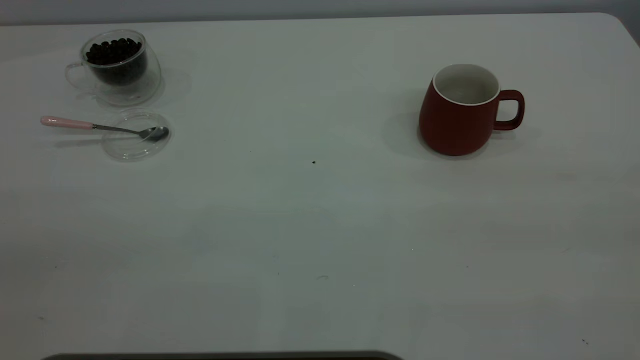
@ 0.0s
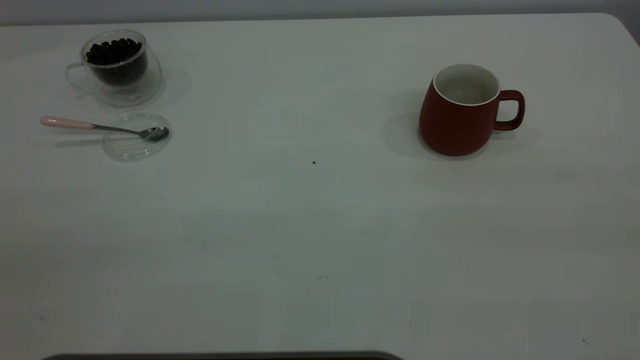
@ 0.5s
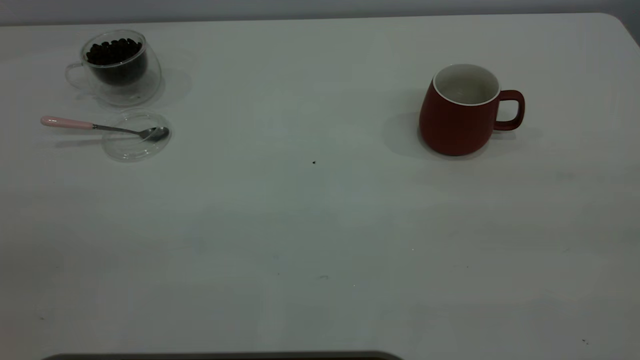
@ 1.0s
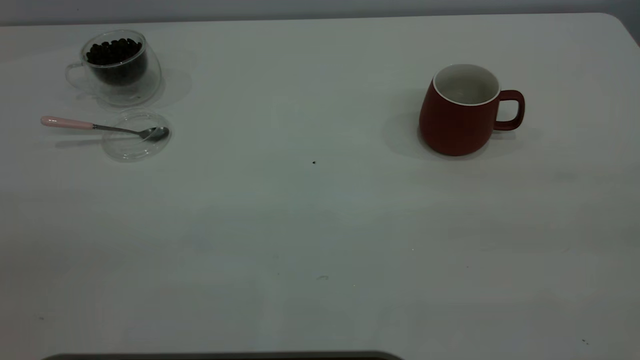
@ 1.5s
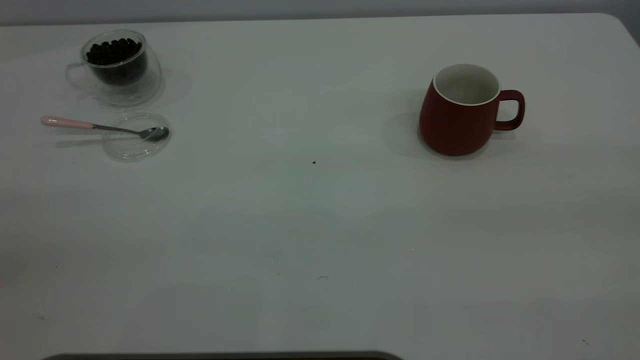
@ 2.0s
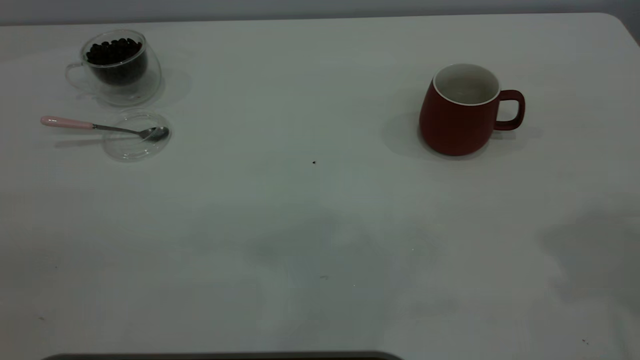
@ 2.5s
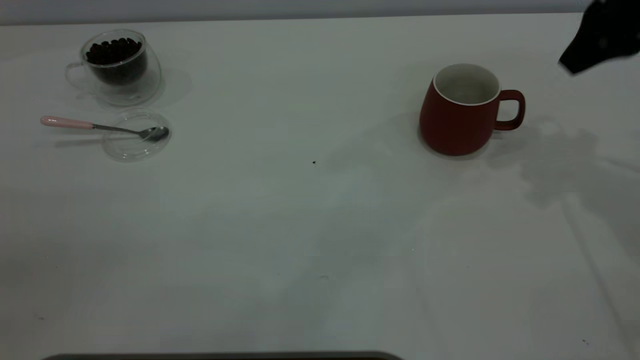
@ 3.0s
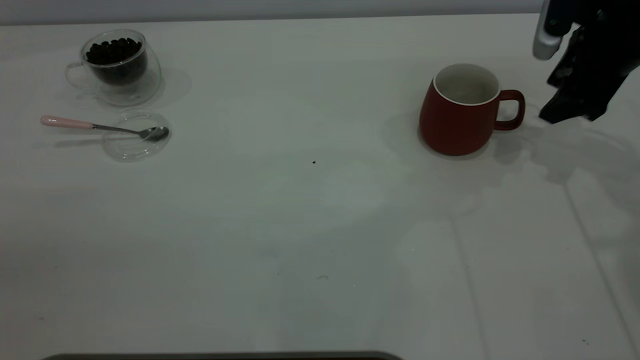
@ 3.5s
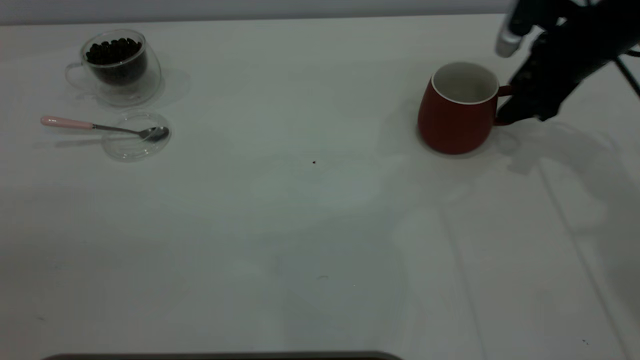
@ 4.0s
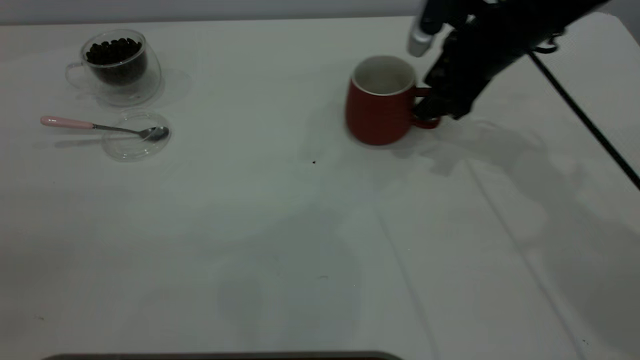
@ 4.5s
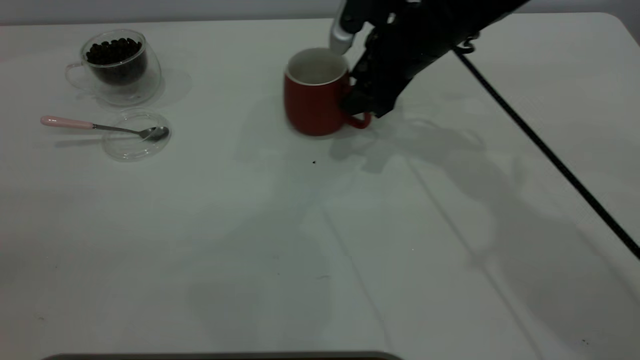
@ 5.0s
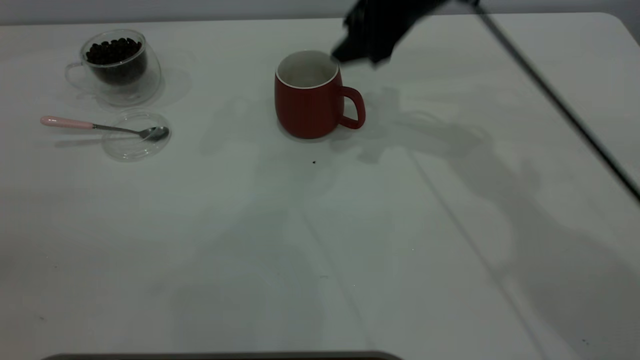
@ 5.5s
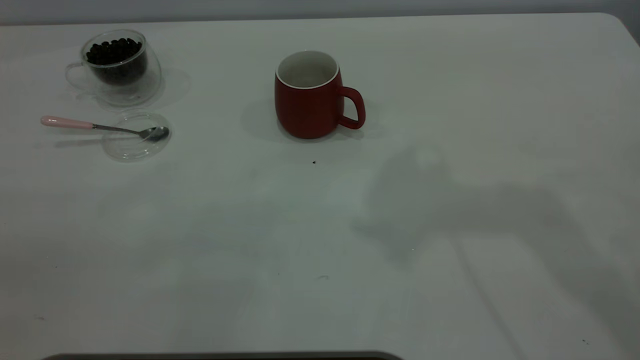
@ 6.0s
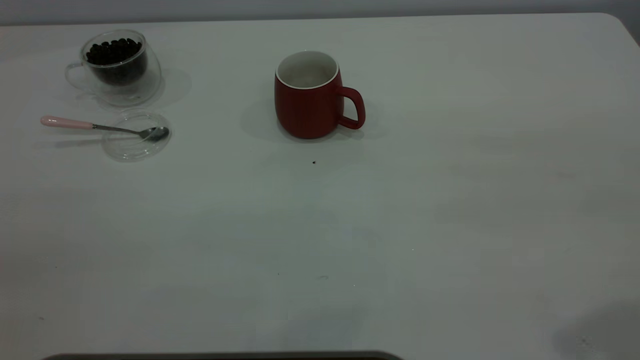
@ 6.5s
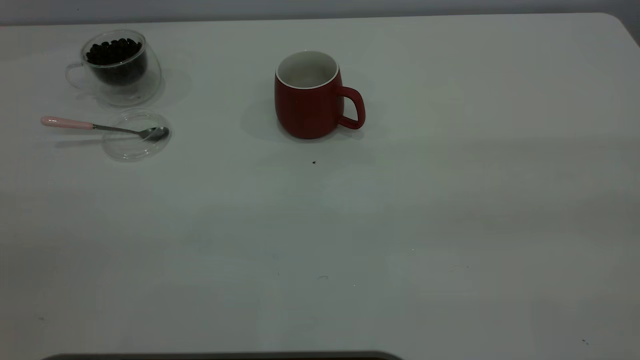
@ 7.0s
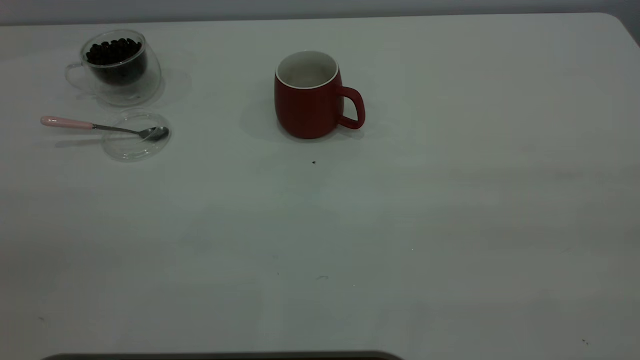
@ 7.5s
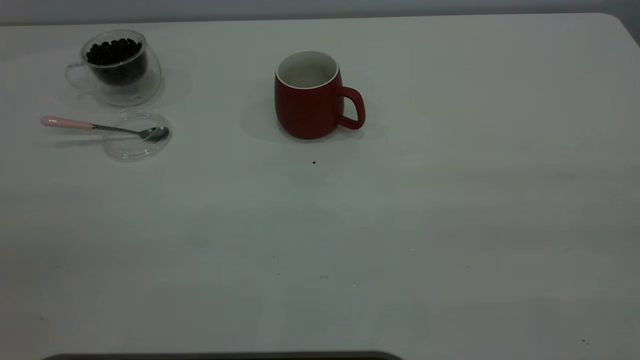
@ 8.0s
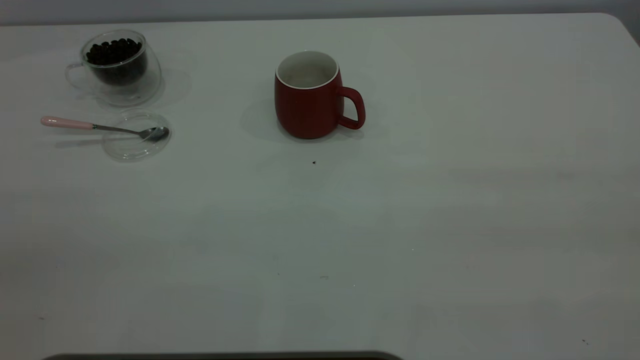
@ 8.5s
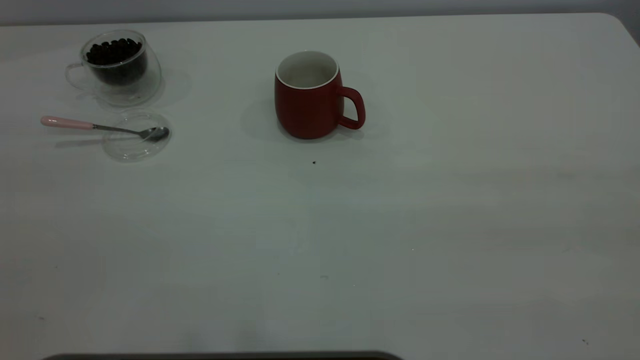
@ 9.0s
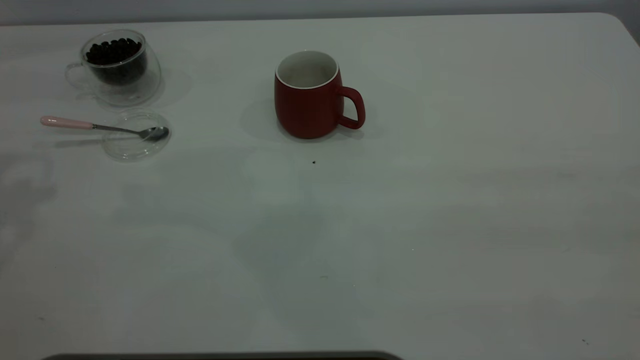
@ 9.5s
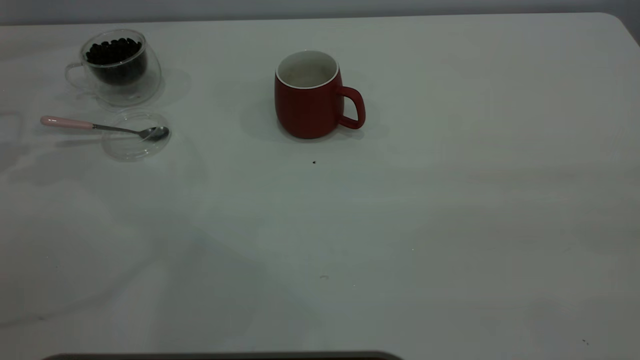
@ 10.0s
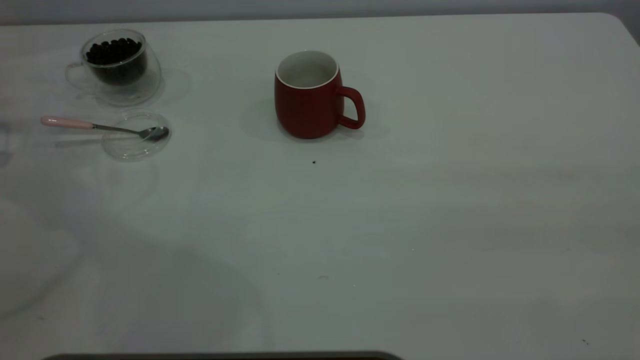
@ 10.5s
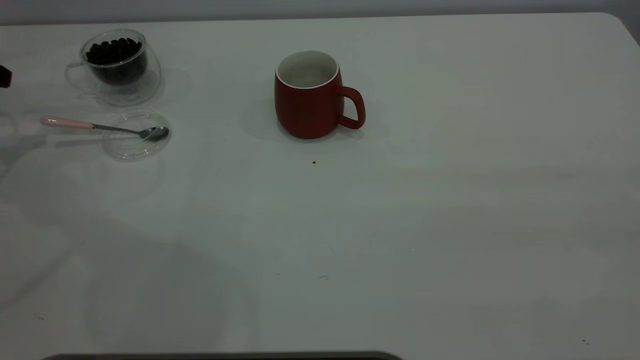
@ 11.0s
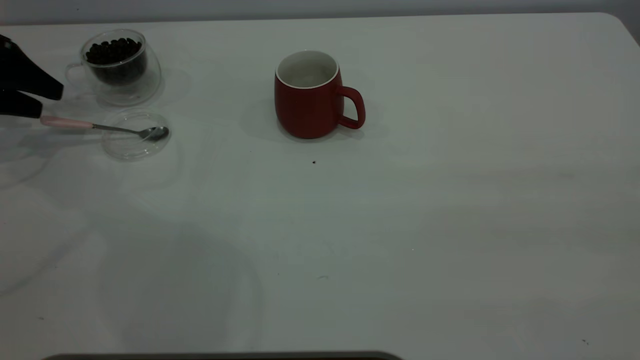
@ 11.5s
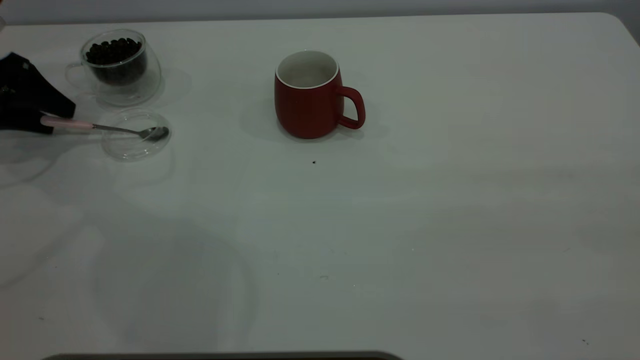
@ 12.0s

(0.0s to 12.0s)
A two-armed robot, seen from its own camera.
Task of the whole recording: the right gripper place the red cup in the center of the table, the left gripper take the pink spoon from the cup lid and scoop out the coffee beans from the coffee cup and put them into the red cup, the left gripper put the spoon back into the cup lid.
Step, 0.0s - 5.0s: Move the cup to the center of view.
2.0s - 4.0s: The right gripper moves forward and downward, some 50 cm.
4.0s - 6.0s: The right gripper moves upward, backward and to the left, approximately 30 cm.
10.0s - 12.0s: The left gripper heads downward, covering some 10 cm.

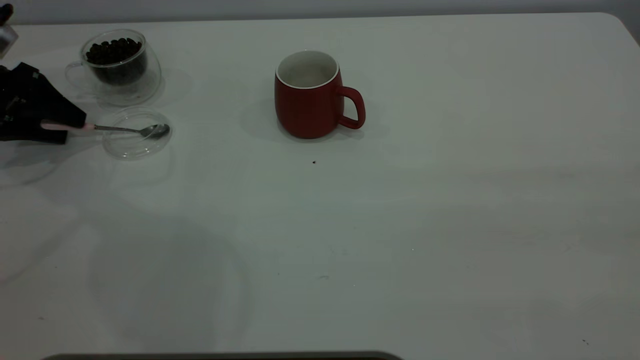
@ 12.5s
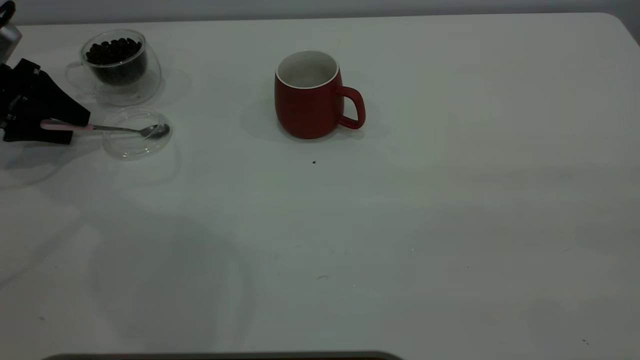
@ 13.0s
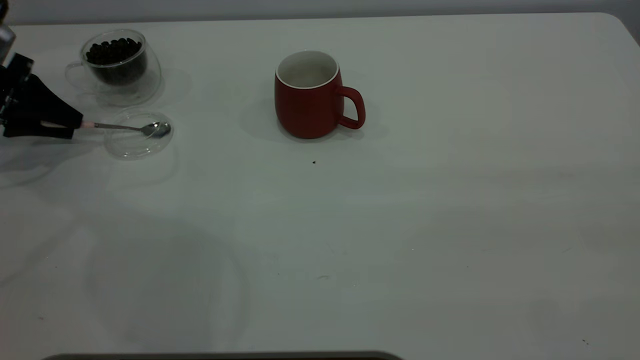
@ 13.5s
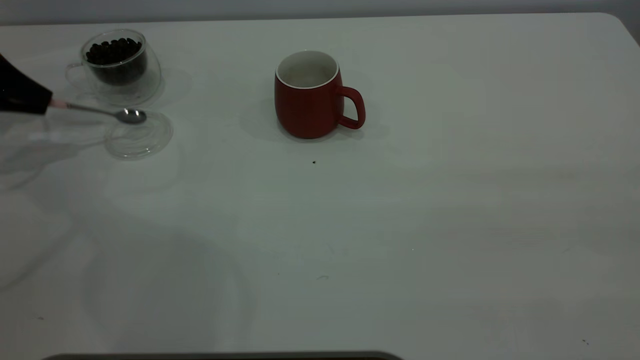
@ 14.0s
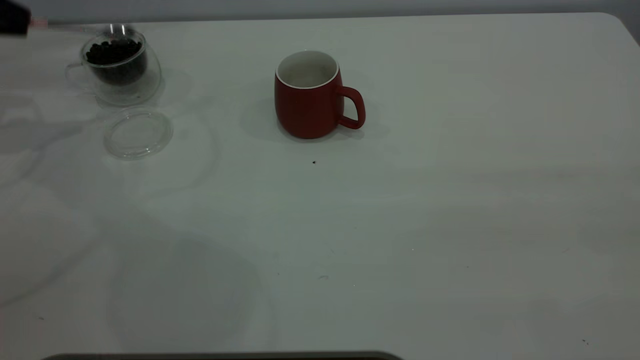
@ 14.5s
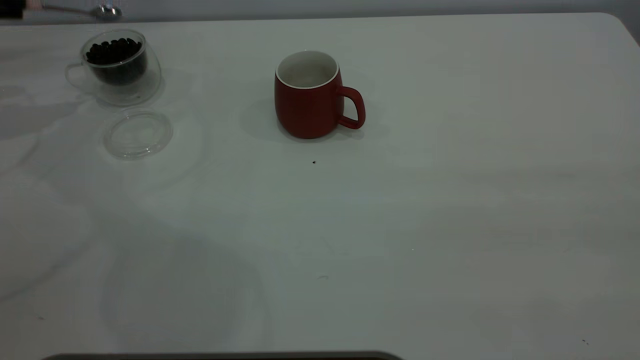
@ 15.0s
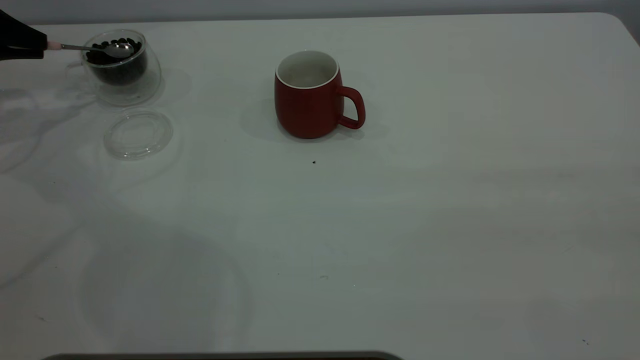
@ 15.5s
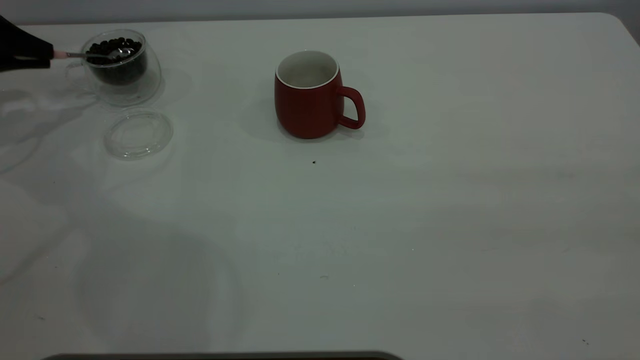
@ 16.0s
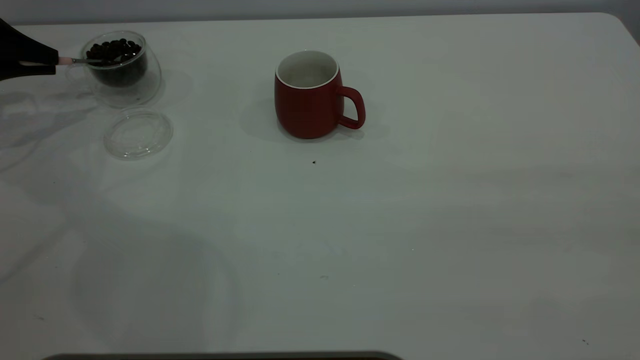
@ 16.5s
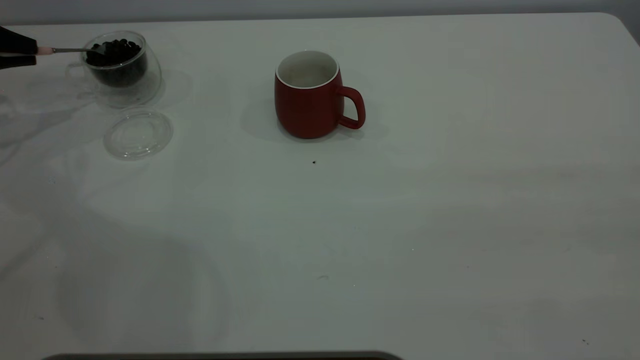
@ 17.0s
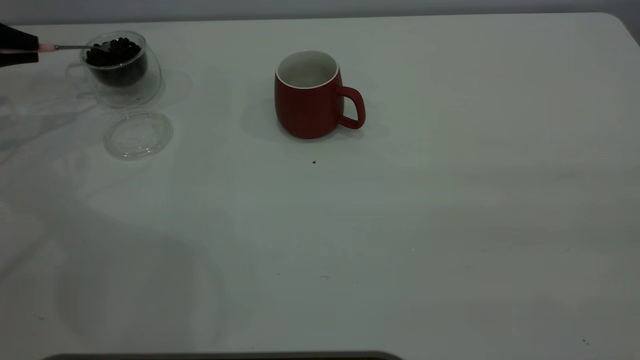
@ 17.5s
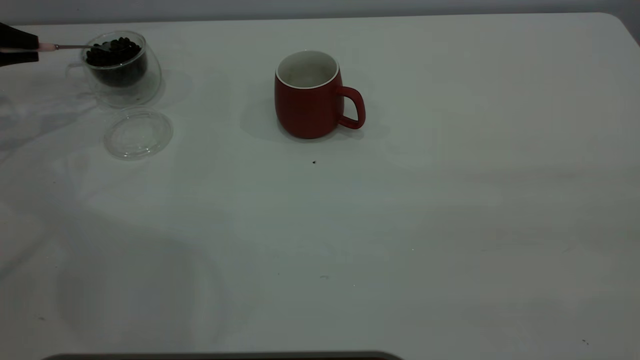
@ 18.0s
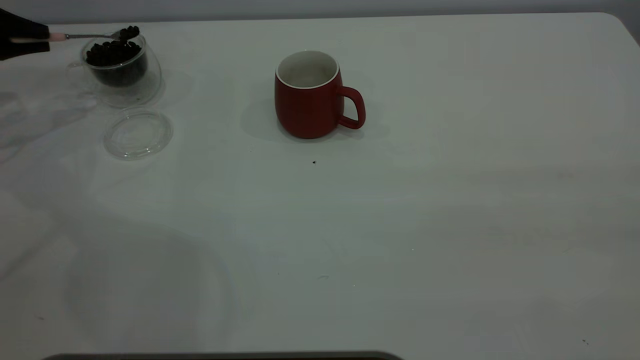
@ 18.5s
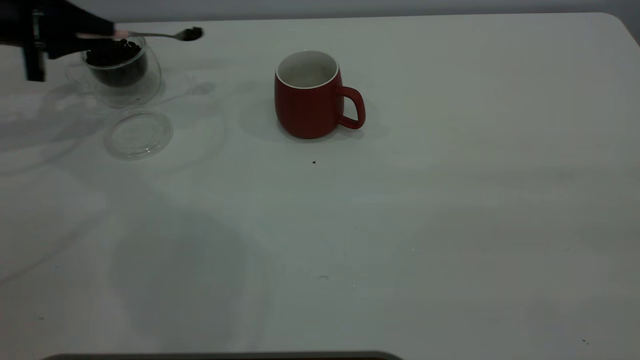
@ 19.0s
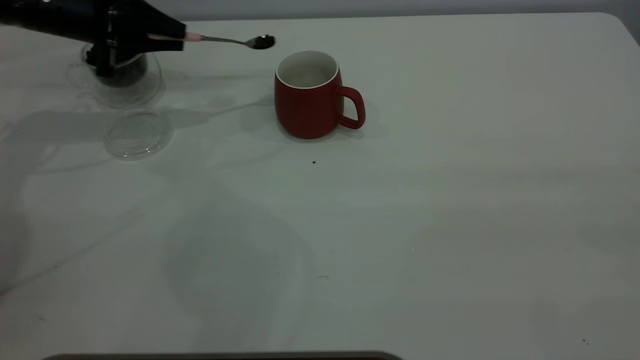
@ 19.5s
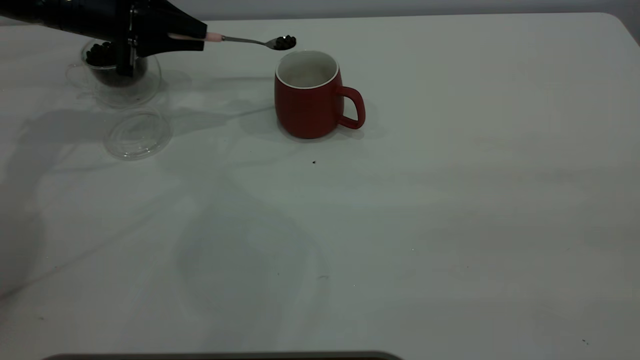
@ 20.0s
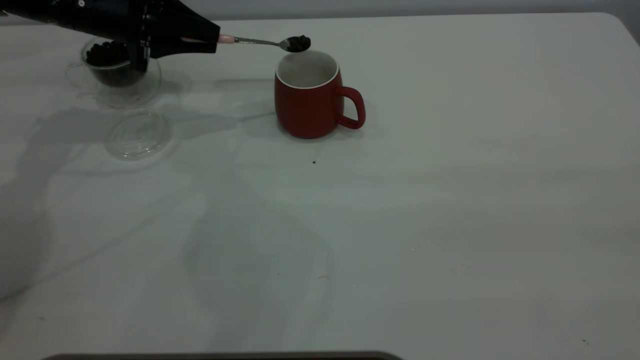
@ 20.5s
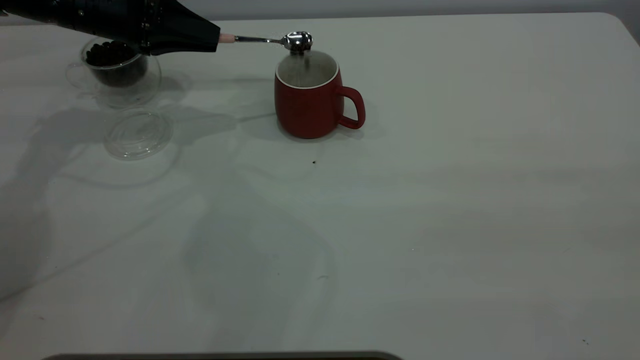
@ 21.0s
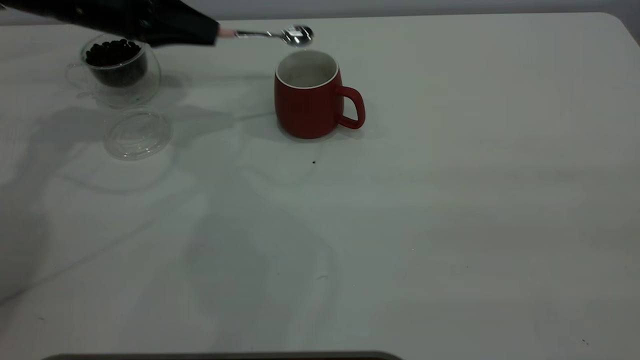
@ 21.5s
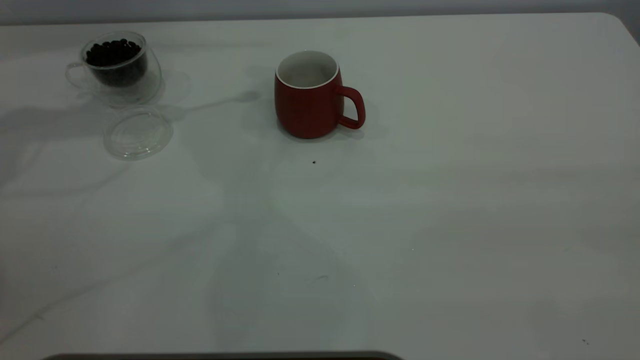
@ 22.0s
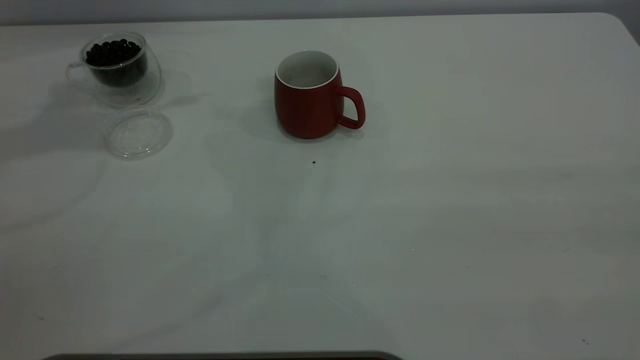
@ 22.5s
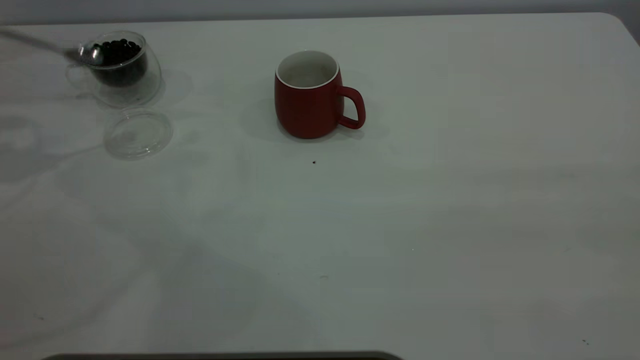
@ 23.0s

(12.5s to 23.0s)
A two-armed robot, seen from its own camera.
Task of the whole recording: the right gripper place the red cup in the center of the table, the left gripper take the pink spoon from the cup lid and scoop out the coffee beans from the coffee cup and put them into the red cup, the left gripper put the spoon back into the cup lid.
Step, 14.5s - 21.5s: Scoop a spoonful of beans into the cup.
12.5s - 14.5s: The left gripper is displaced upward by approximately 10 cm, and closes up.
14.5s - 16.5s: The left gripper travels downward by roughly 10 cm.
16.5s - 19.0s: The left gripper shifts about 10 cm to the right.
19.0s - 21.0s: The left gripper moves to the right, about 10 cm.
21.0s - 23.0s: The left gripper moves to the left, upward and backward, about 20 cm.
